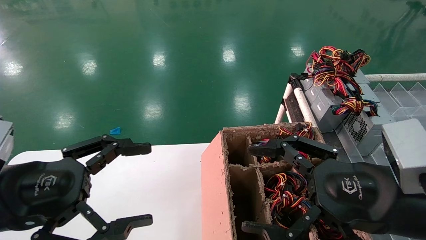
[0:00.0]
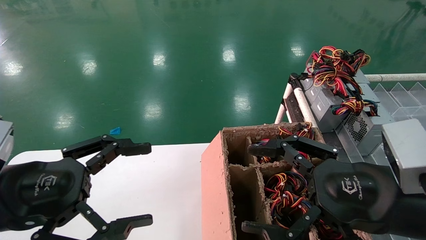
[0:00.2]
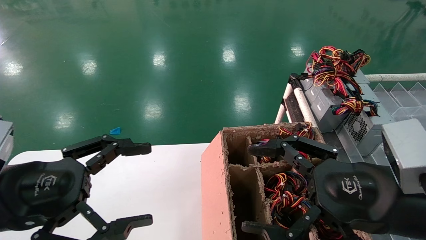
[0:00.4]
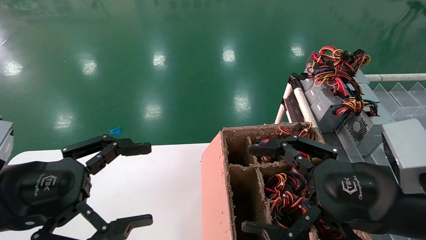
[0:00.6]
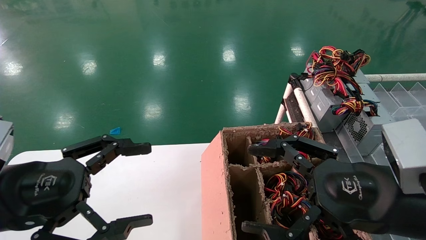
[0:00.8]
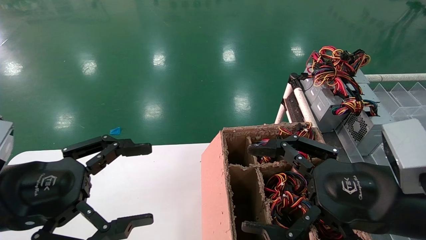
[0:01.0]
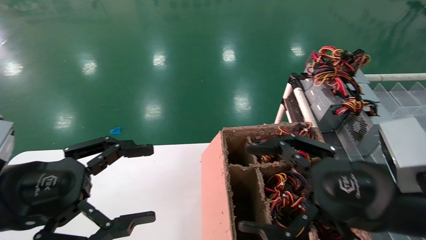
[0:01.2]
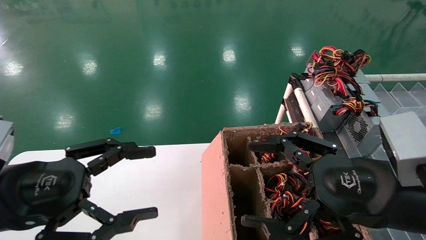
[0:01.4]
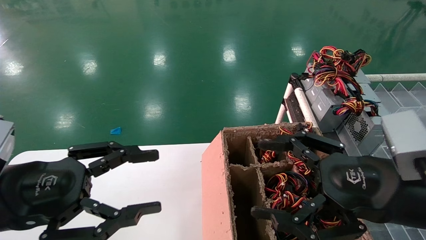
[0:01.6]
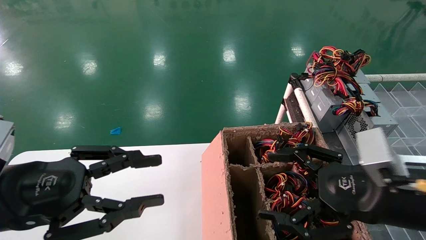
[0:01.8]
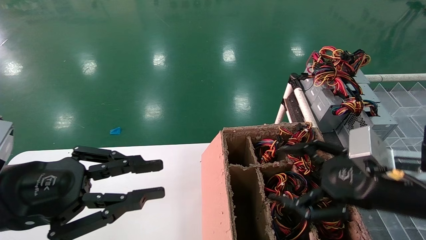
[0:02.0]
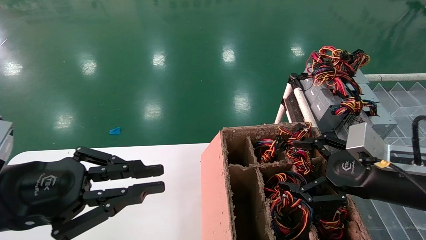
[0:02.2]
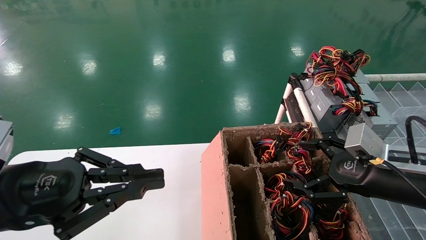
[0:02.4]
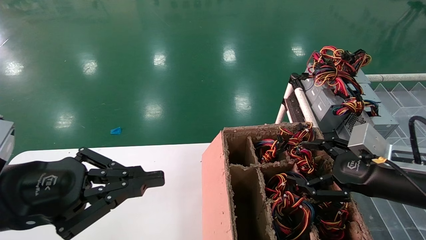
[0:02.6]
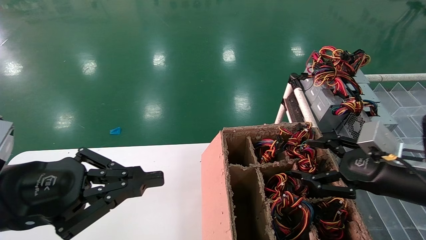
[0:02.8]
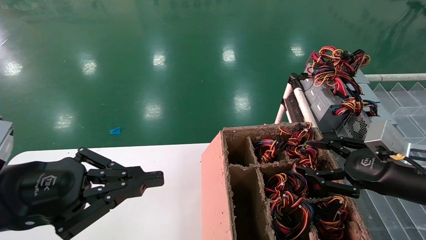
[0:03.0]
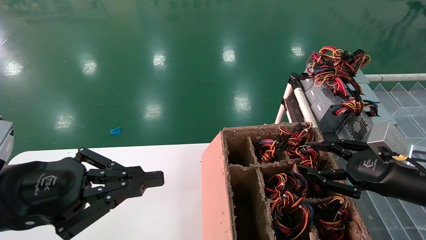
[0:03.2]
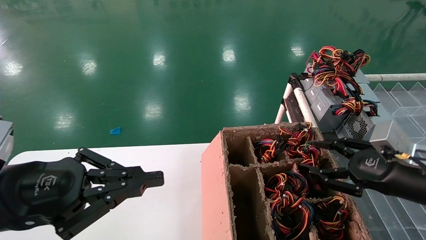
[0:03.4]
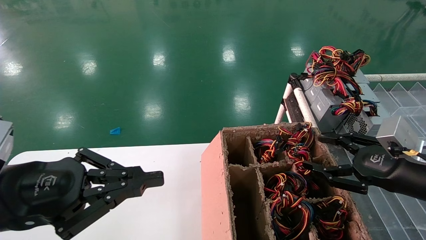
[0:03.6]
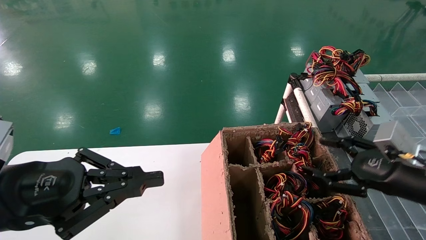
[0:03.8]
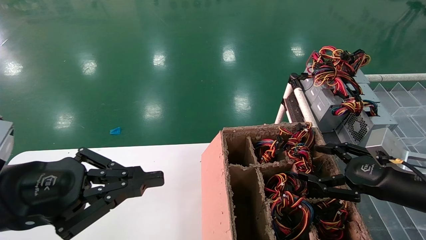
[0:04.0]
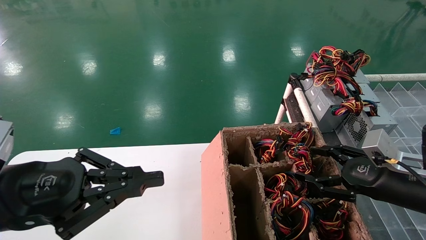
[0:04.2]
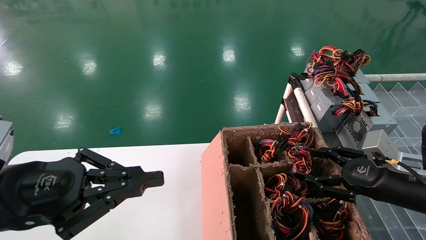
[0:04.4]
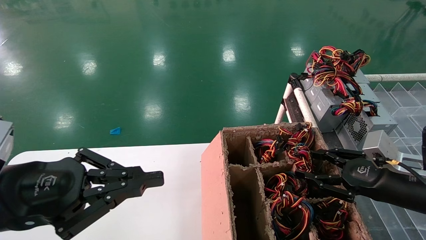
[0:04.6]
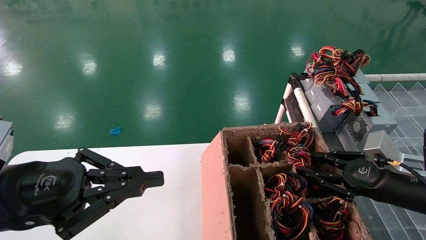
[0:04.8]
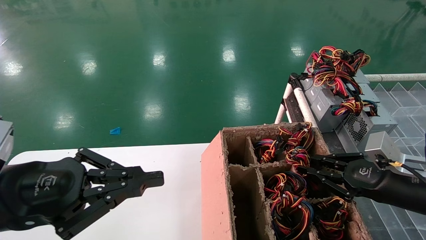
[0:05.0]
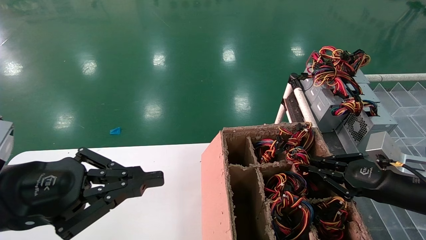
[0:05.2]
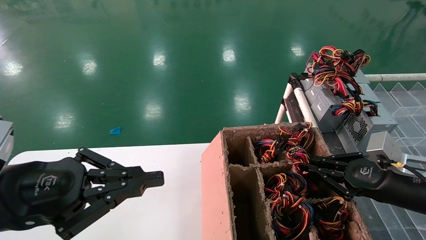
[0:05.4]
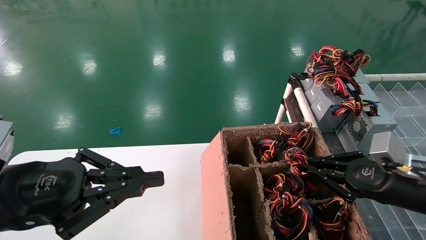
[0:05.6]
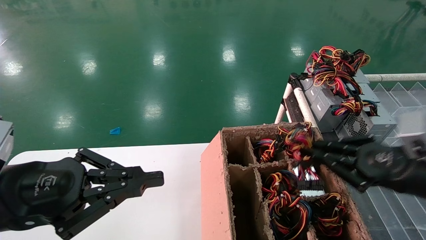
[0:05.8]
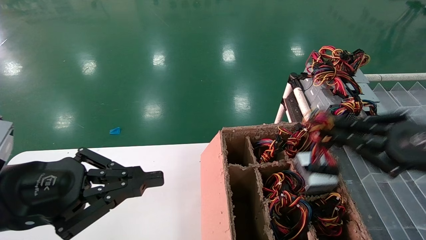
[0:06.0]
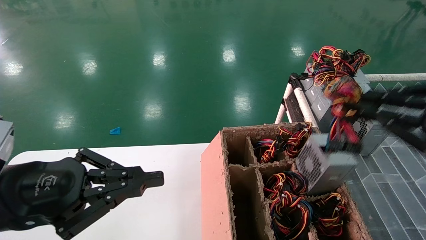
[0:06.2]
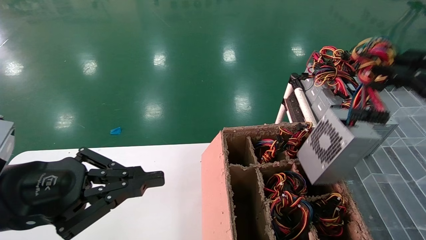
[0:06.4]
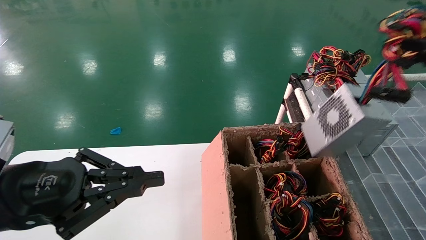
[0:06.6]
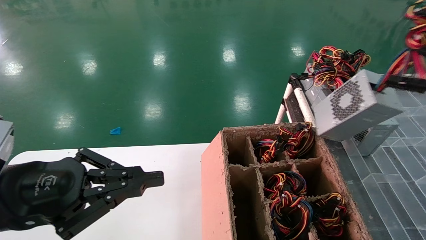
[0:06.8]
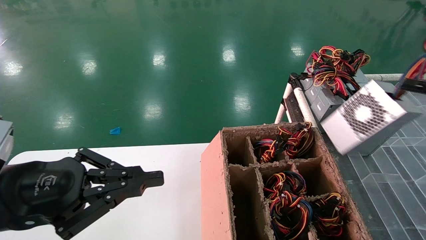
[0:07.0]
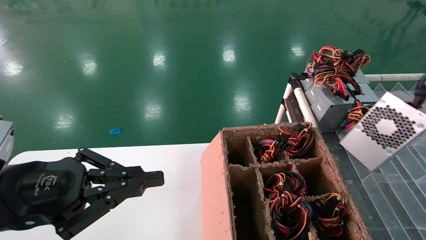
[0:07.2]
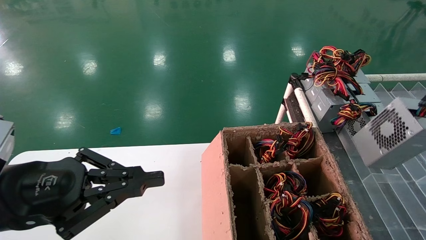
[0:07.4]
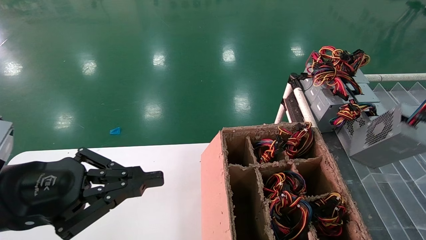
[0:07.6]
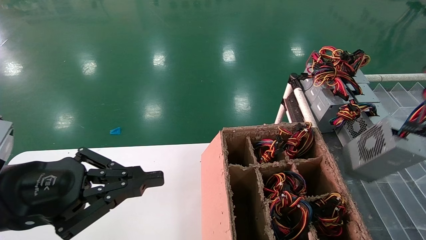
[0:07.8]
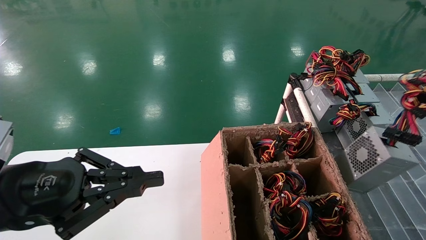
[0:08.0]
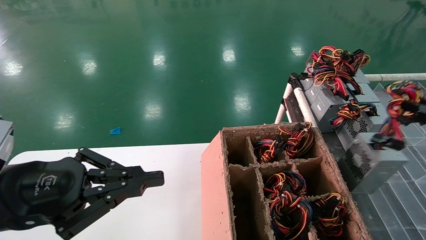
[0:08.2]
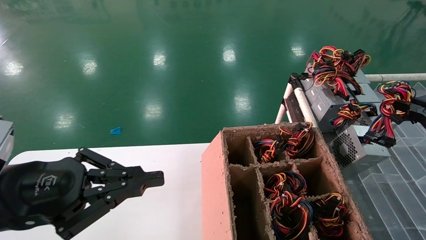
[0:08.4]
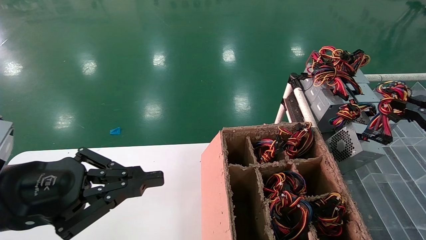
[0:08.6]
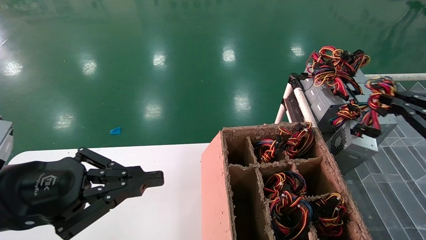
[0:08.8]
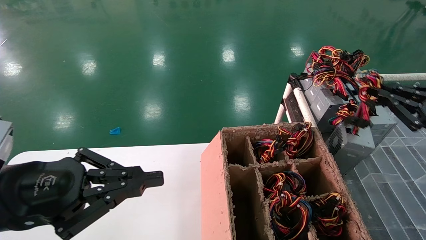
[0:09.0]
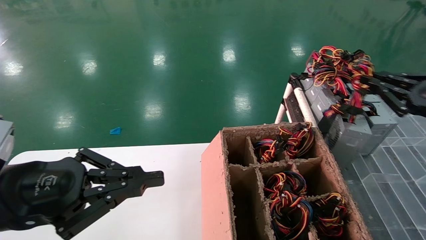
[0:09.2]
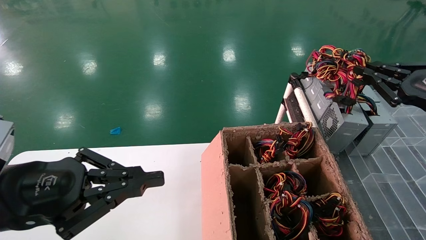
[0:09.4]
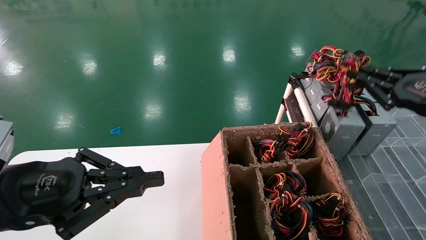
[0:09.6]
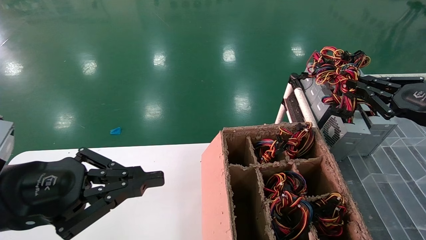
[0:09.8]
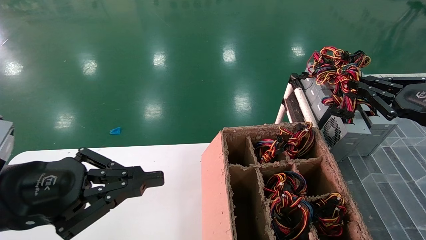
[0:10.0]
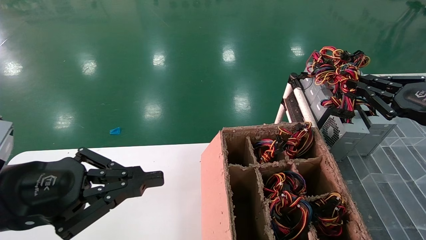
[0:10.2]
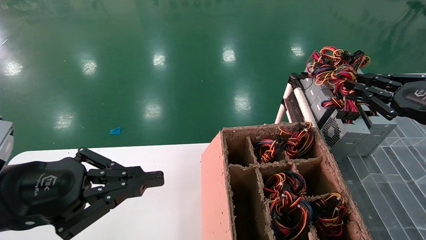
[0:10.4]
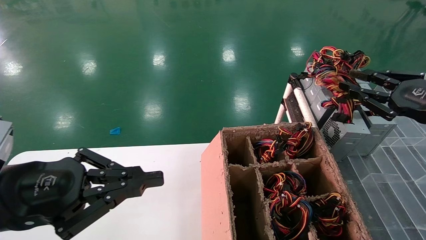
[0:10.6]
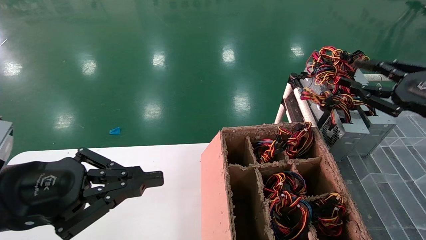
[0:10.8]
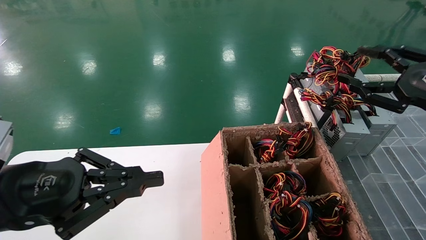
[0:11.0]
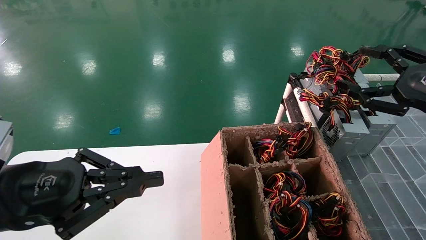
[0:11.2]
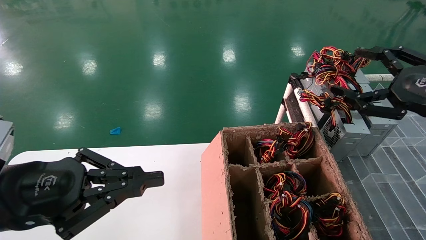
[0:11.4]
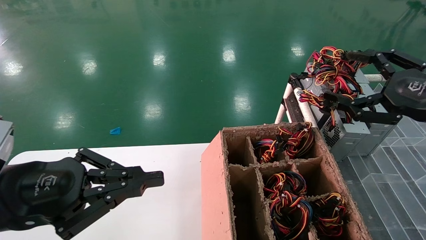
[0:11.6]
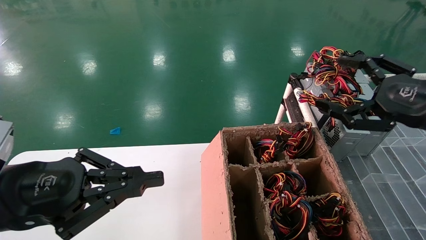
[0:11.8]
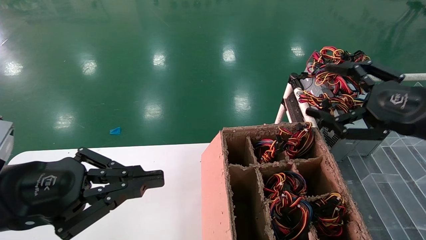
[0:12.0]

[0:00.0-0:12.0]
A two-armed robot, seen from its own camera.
Step, 0:01.4 to 0:05.0: Grab the main unit power supply from the containment box.
Step, 0:05.2 to 0:10.6: Place the main unit power supply in the designated area.
0:00.0 to 0:01.6: The grippers move only a little.
0:01.6 to 0:03.0: The right gripper is displaced to the right and forward by approximately 10 cm. Meanwhile the left gripper closes its fingers.
0:03.0 to 0:04.4: The grippers make only small movements.
0:04.4 to 0:06.0: The right gripper heads upward and backward, covering some 15 cm, and closes its fingers.
0:06.0 to 0:07.6: The right gripper goes roughly 15 cm to the right and backward.
0:07.6 to 0:09.0: The right gripper shifts approximately 15 cm forward.
0:09.0 to 0:10.4: The grippers move only a little.
0:10.4 to 0:12.0: The right gripper goes approximately 10 cm to the left, and opens its fingers.

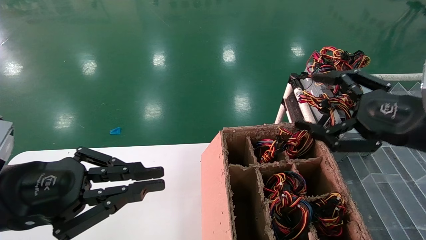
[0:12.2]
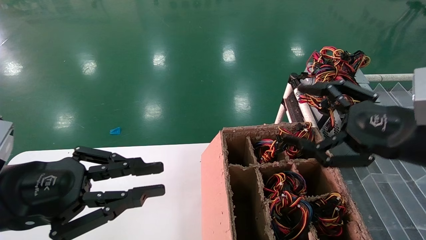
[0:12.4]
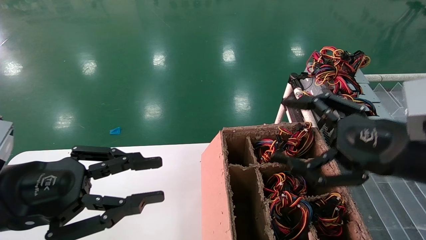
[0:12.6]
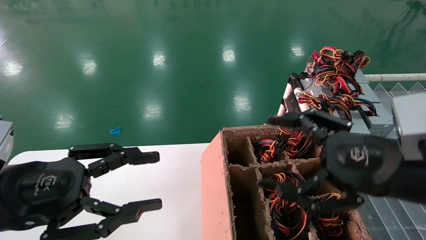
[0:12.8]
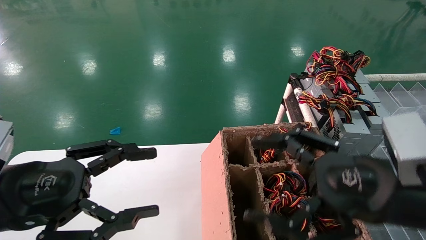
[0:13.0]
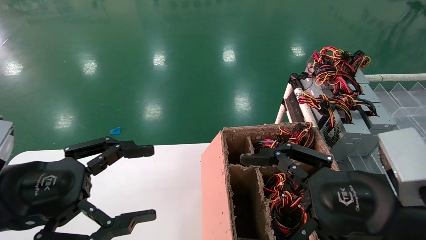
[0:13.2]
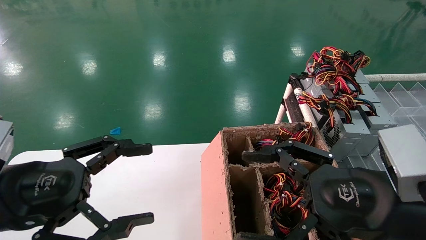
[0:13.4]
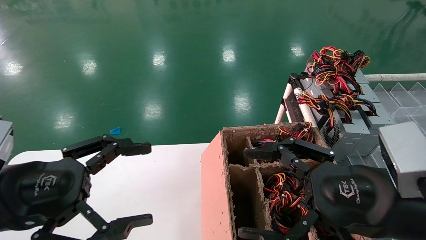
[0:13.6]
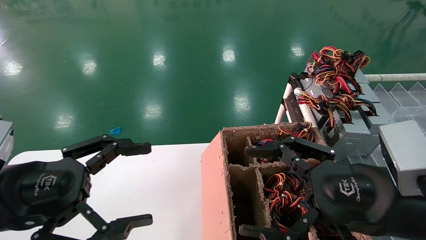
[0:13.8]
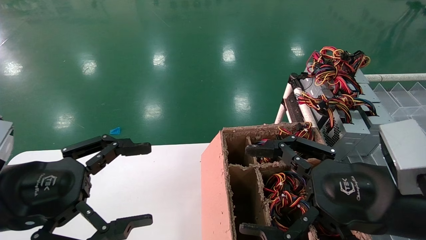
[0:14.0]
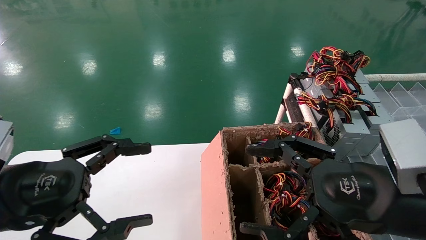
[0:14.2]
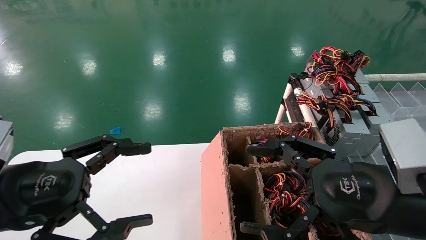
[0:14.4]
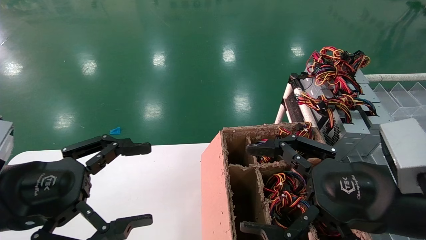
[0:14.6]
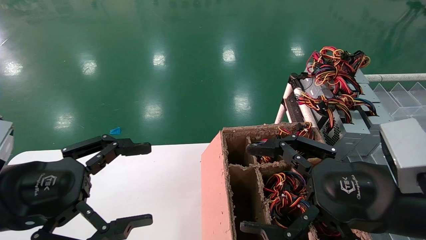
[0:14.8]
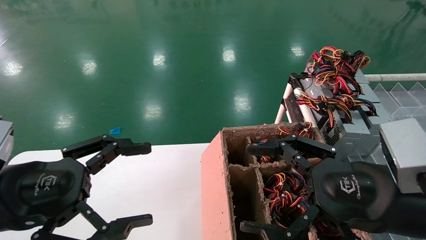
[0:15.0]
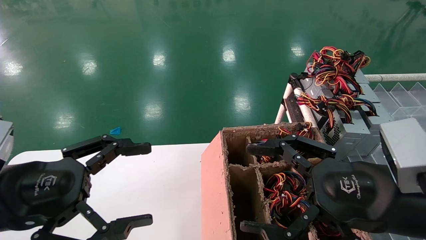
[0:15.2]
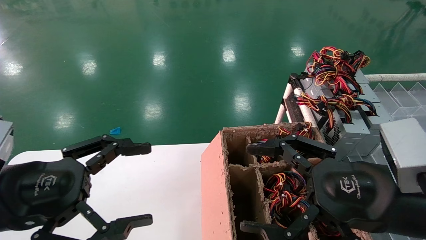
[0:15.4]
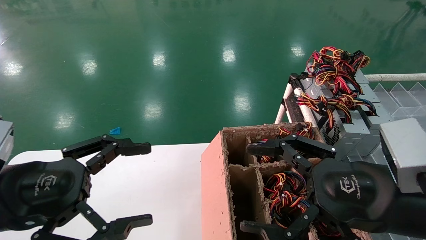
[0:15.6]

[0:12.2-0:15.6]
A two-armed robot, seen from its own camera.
0:12.2 to 0:13.8: The right gripper is displaced to the left and backward by approximately 10 cm, while the left gripper opens.
0:13.8 to 0:15.6: Neither gripper changes place.

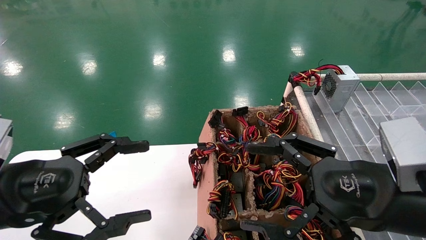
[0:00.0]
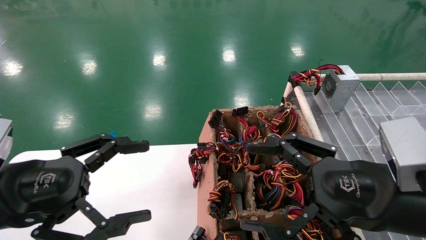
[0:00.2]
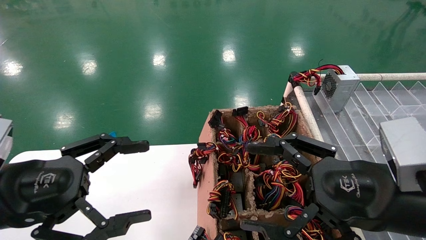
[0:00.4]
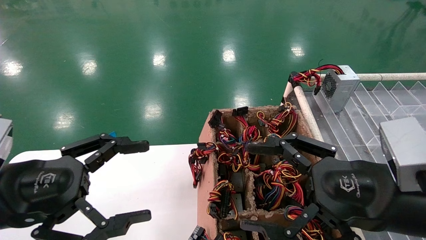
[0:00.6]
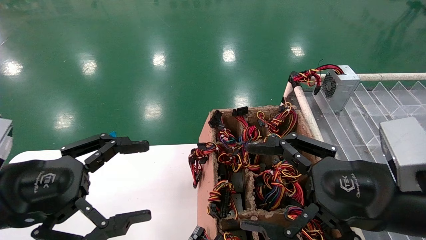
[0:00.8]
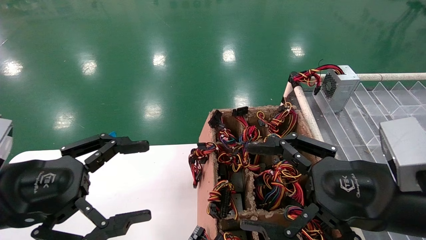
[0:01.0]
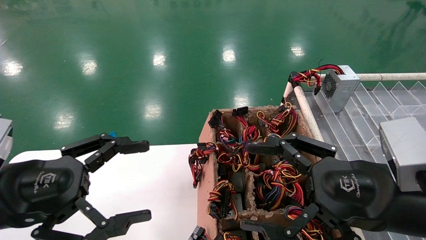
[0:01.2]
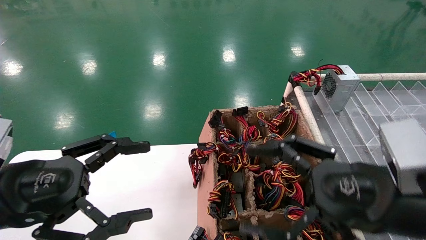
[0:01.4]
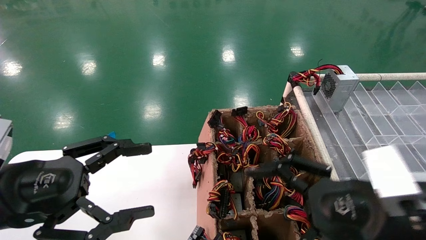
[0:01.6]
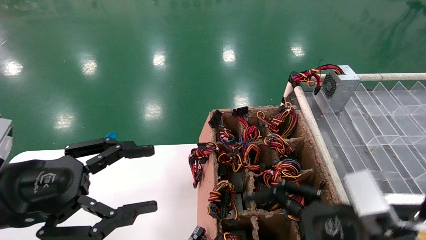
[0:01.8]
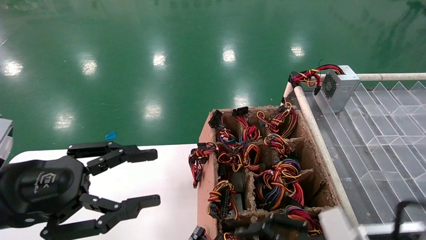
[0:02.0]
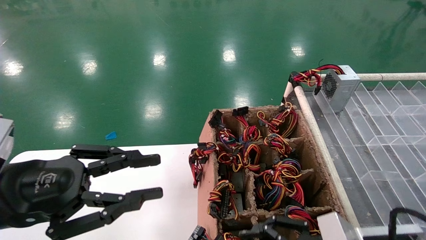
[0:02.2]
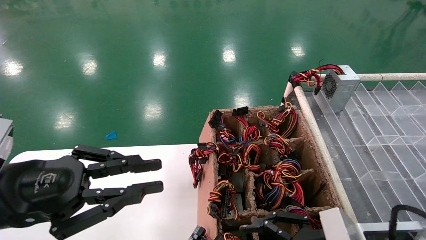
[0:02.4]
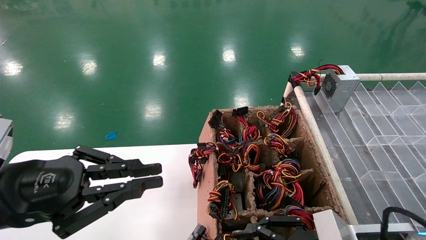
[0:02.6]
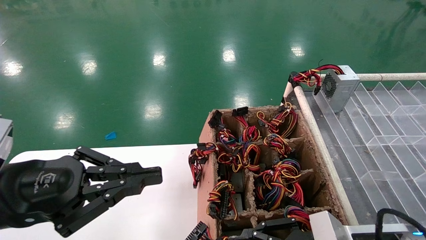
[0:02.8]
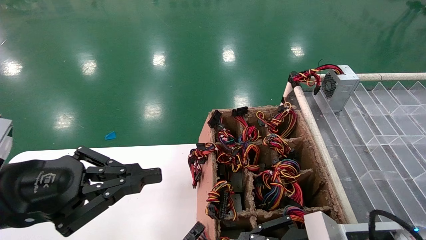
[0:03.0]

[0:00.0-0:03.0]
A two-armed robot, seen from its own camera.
0:00.0 to 0:01.6: The grippers move only a little.
0:01.6 to 0:03.0: The left gripper closes up, while the right gripper heads downward, covering about 10 cm, and closes its fingers.
